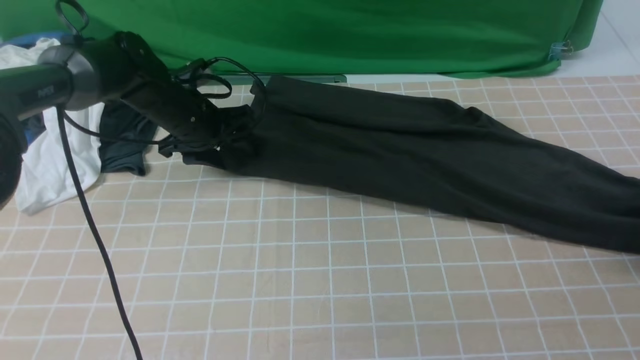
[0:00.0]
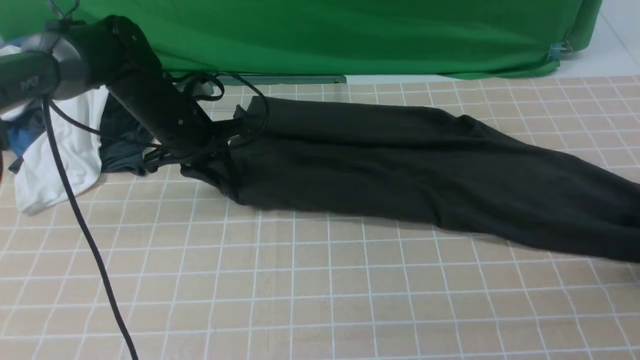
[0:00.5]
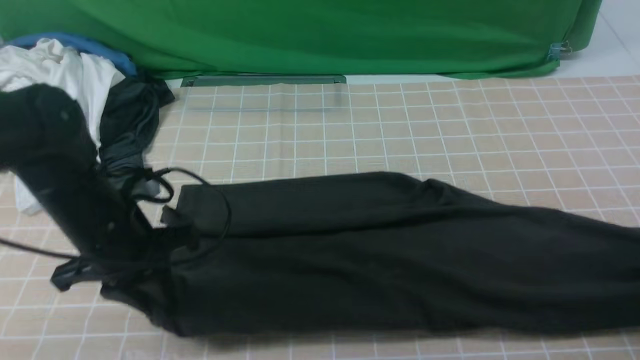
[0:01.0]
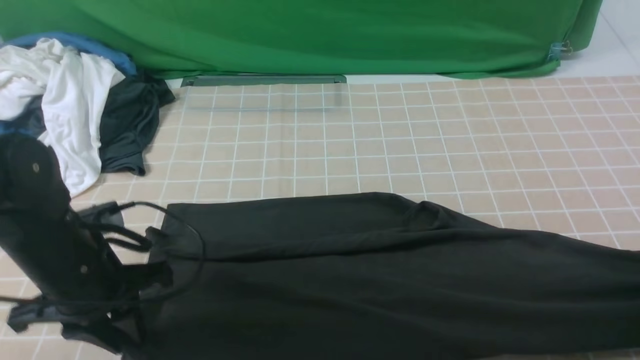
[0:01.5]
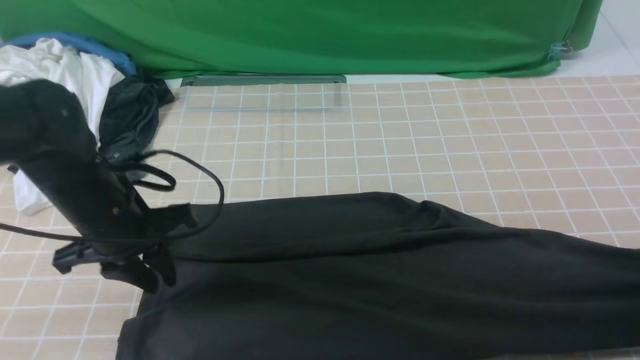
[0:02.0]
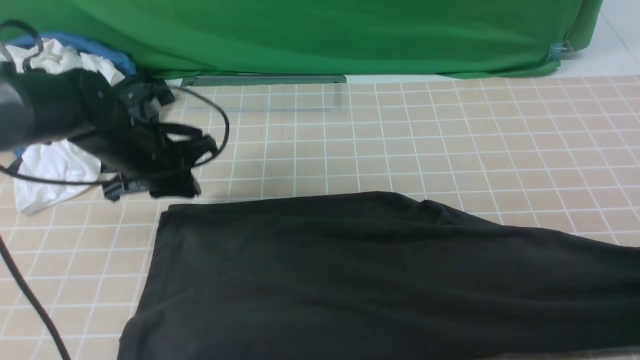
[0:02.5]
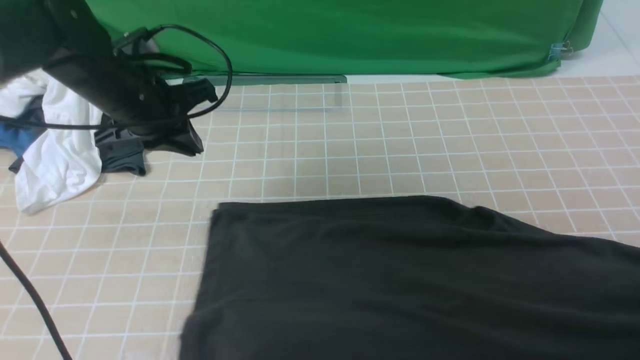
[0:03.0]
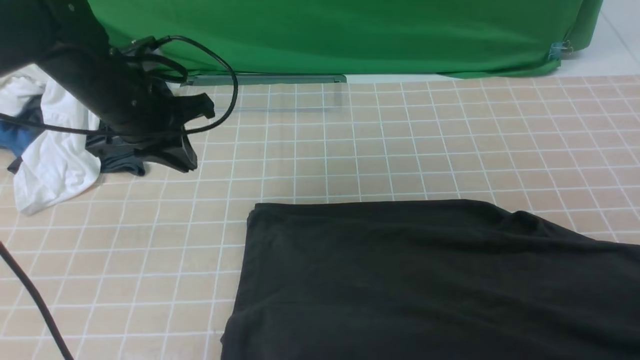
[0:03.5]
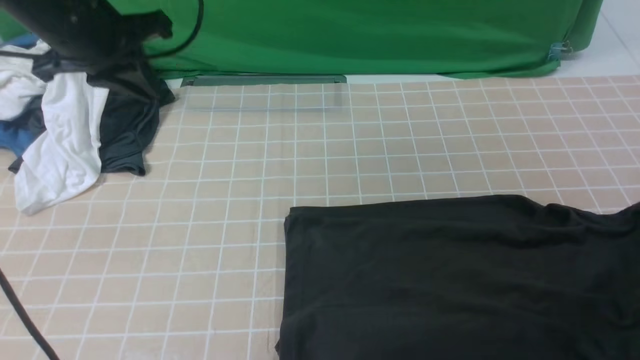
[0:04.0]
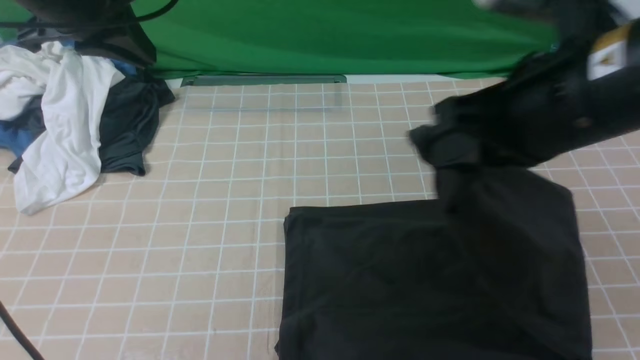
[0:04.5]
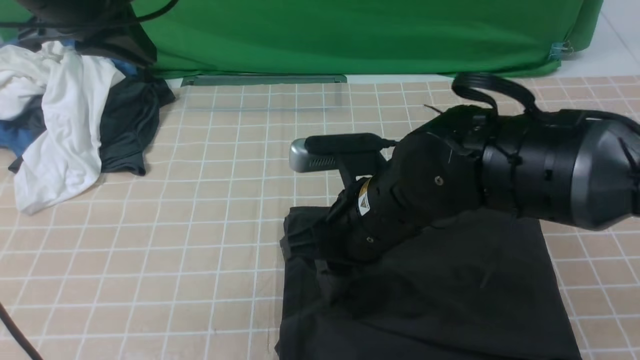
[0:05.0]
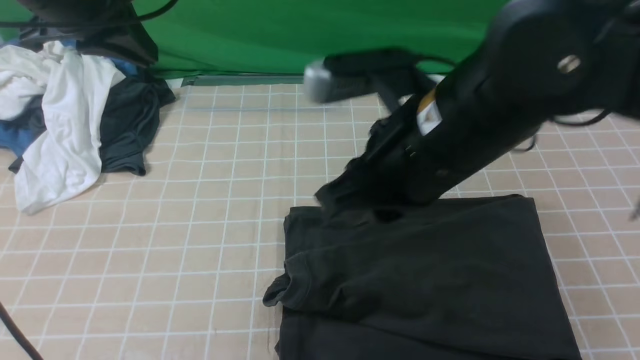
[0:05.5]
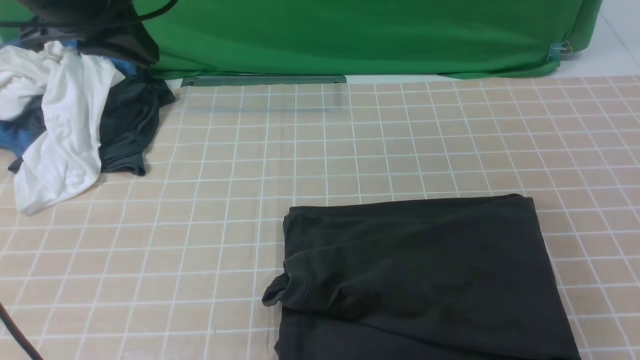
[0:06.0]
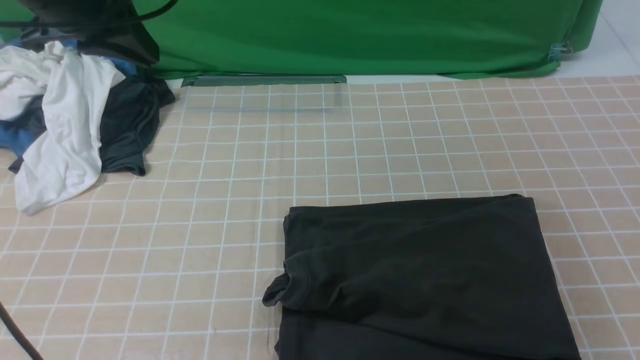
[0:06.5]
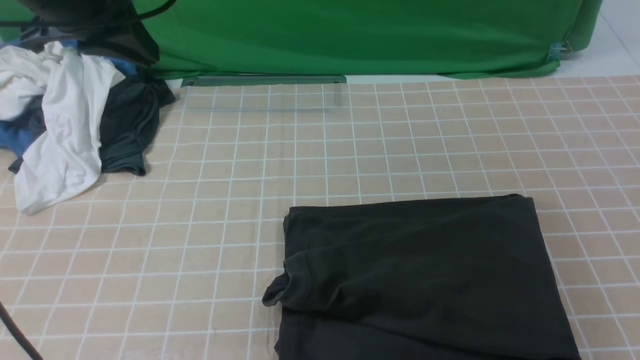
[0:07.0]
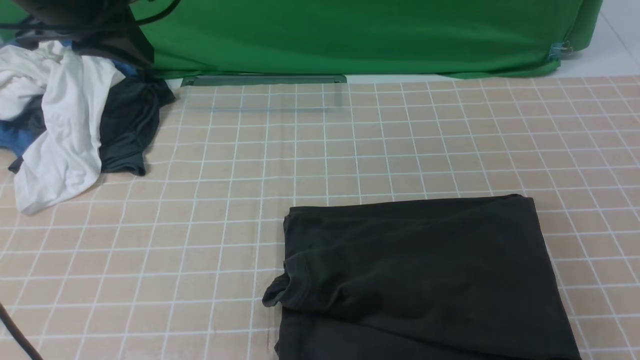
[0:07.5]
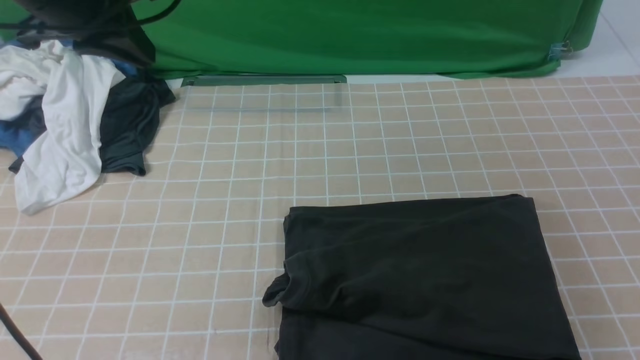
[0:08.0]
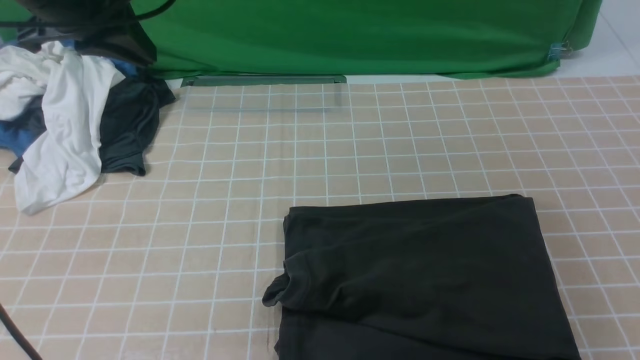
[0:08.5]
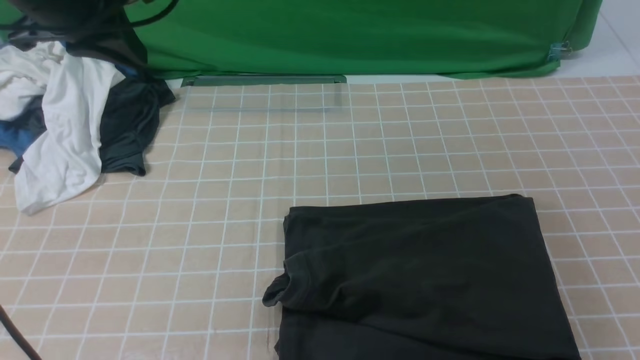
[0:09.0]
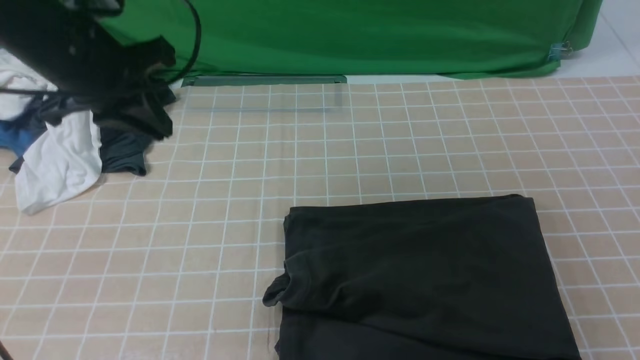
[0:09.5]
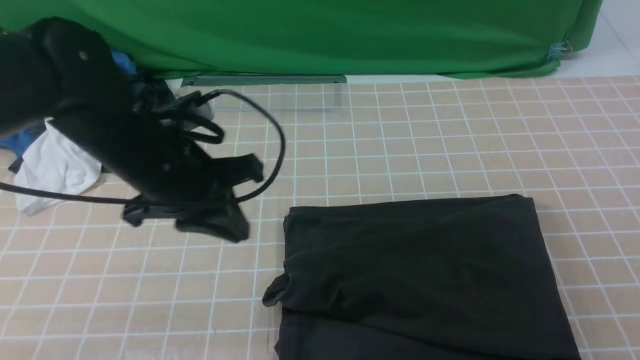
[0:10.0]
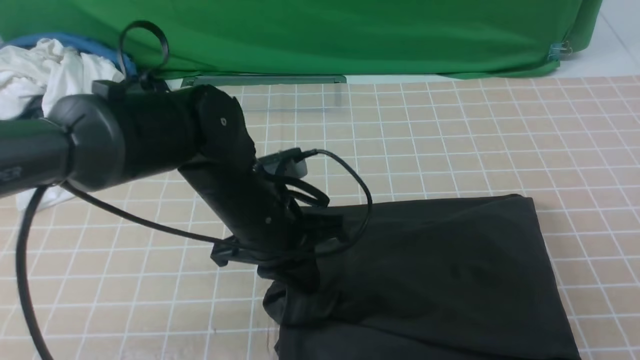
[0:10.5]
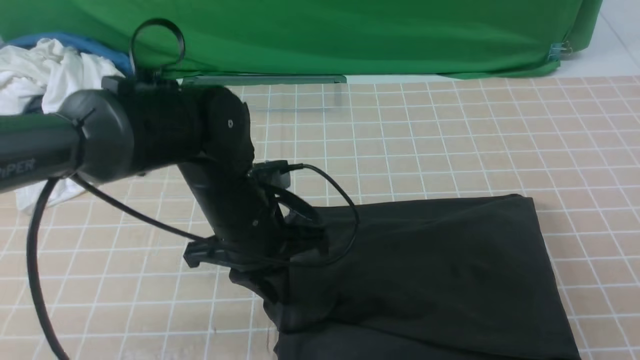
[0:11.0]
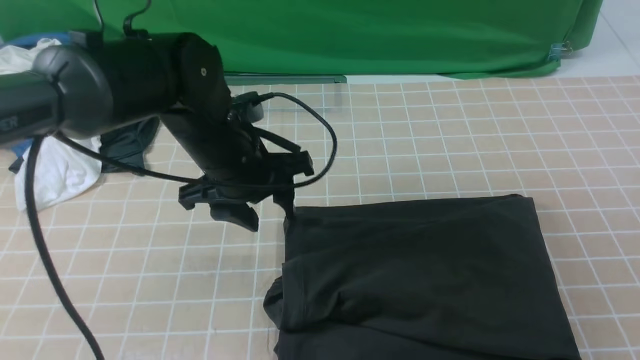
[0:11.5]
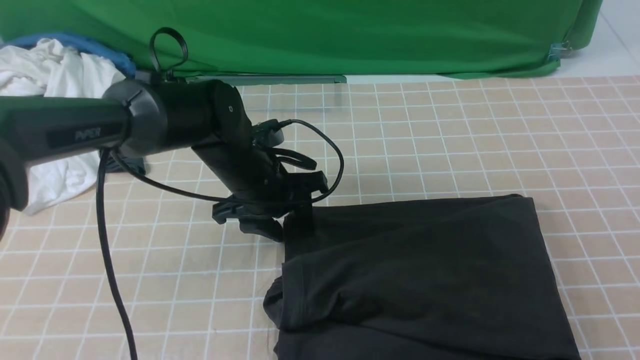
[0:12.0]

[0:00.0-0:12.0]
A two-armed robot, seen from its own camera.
Step, 0:00.0 to 0:05.0: use the right arm to drag the right edge of the fabric to the left and folds it over the left edge.
0:00.0 to 0:02.0: The right gripper travels backward by approximately 10 cm. The left gripper travels backward by some 15 cm, and closes up.
0:02.0 to 0:04.0: The right gripper shifts roughly 15 cm upward. The left gripper is displaced upward and forward by some 15 cm.
0:04.0 to 0:06.0: The right gripper shifts approximately 20 cm to the left, backward and upward, and opens and closes again.
0:08.0 to 0:10.0: The right gripper heads downward, covering about 10 cm, and opens. The left gripper heads downward, to the right and backward, covering roughly 20 cm.
0:10.0 to 0:12.0: The left gripper heads downward, forward and to the right, covering some 15 cm, and opens up.

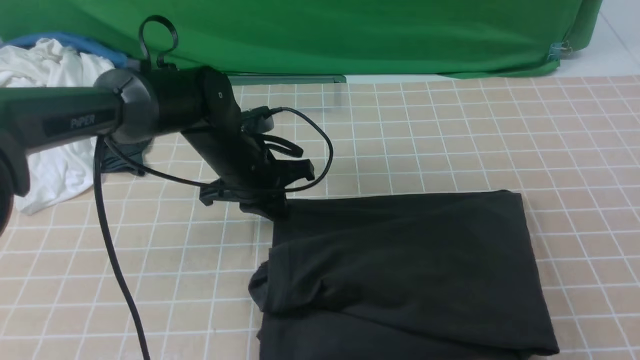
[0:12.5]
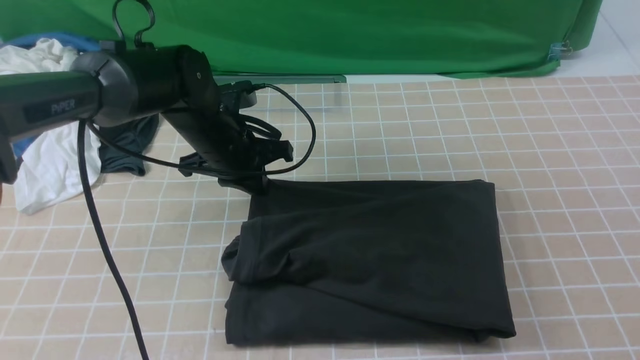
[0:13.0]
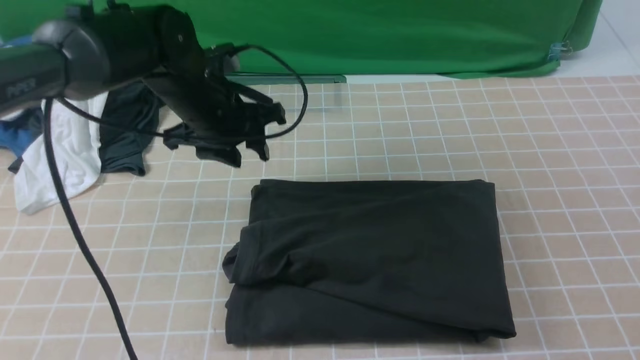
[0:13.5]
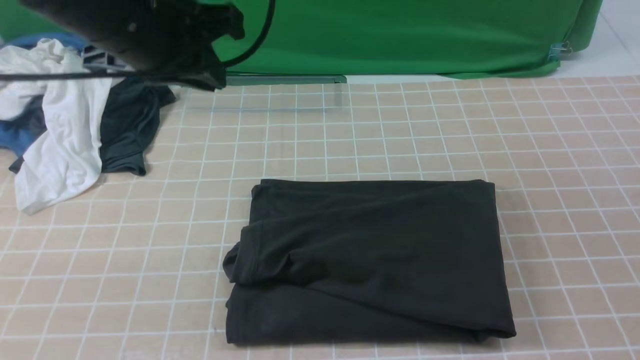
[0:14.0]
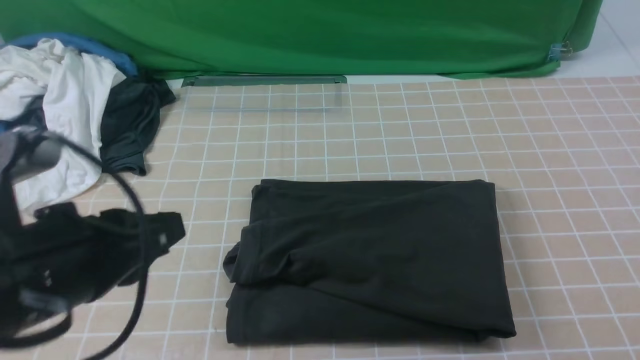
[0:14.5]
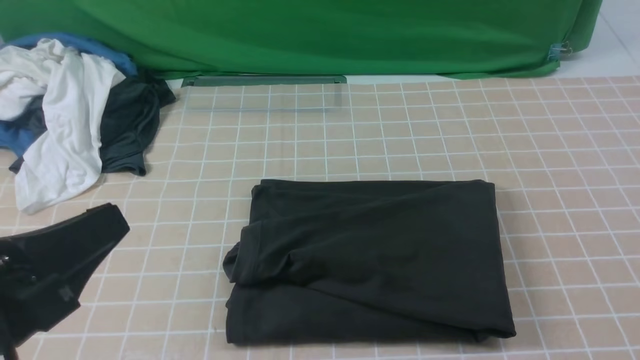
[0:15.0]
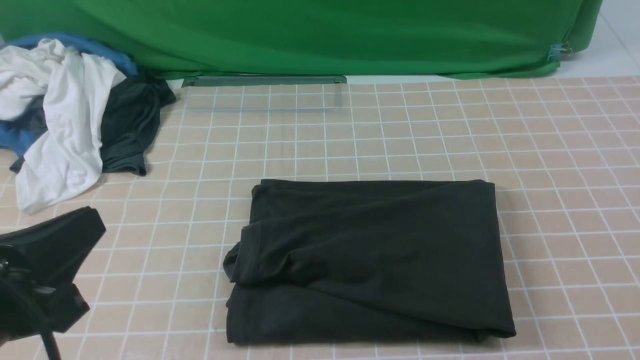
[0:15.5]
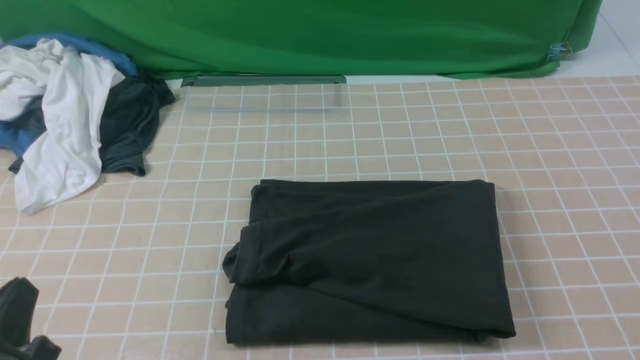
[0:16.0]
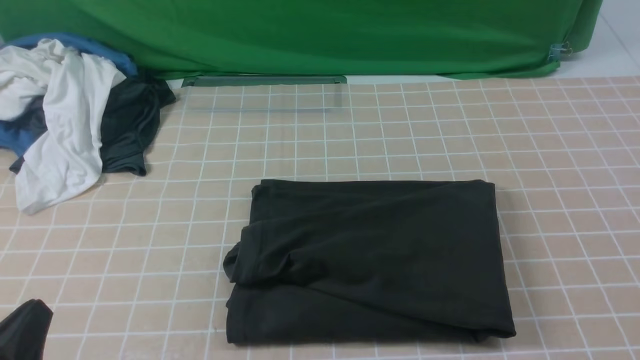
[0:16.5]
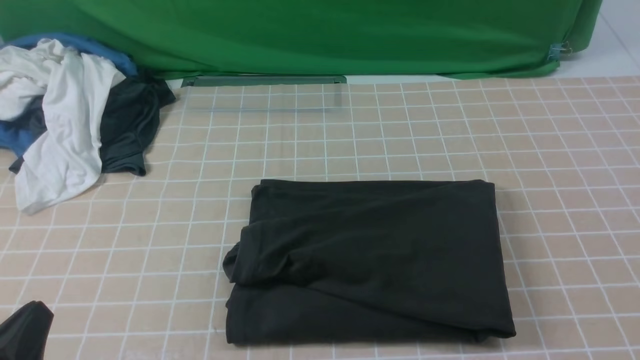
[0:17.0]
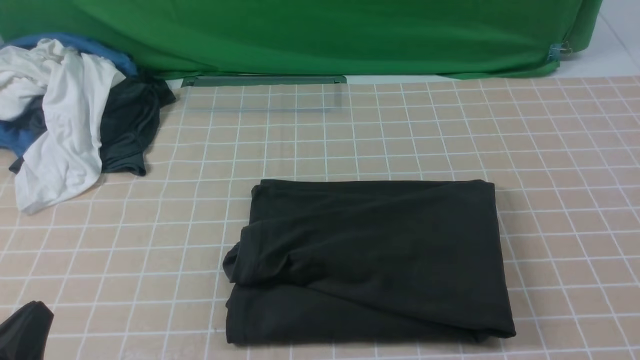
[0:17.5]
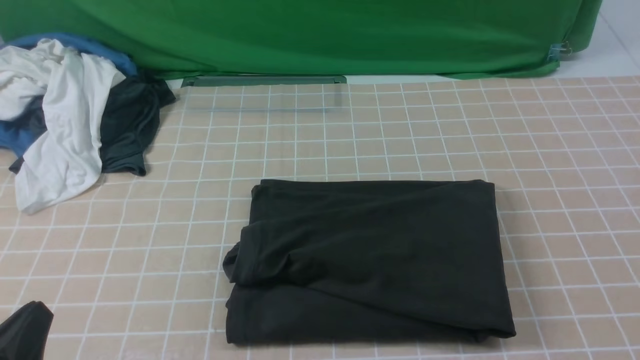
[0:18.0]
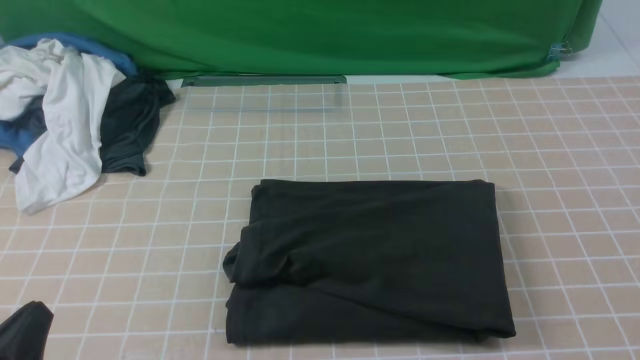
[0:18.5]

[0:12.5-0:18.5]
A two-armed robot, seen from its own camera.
0:12.5 to 0:14.5: The left gripper is displaced backward and upward by some 25 cm, and opens, then closes again.
0:14.5 to 0:16.5: The left gripper is displaced downward, backward and to the left by about 15 cm.
0:16.5 to 0:18.5: Both grippers stay put.
